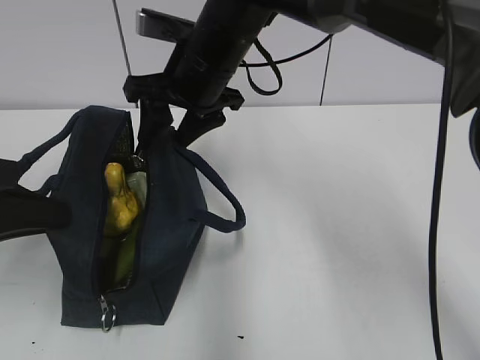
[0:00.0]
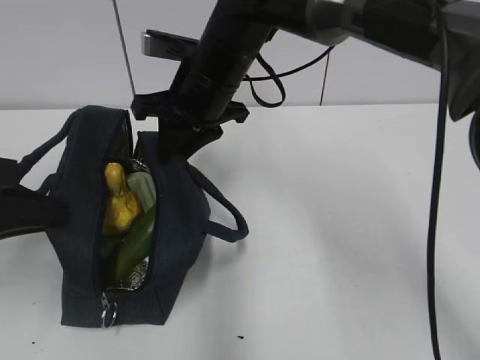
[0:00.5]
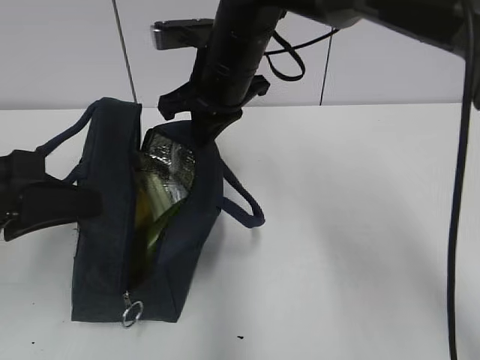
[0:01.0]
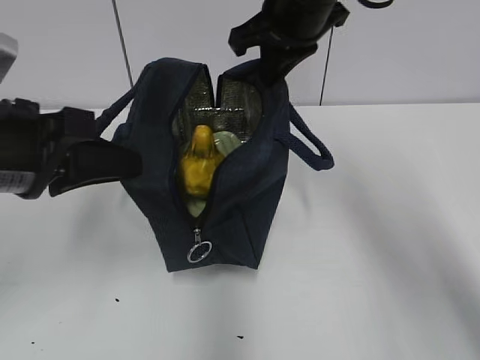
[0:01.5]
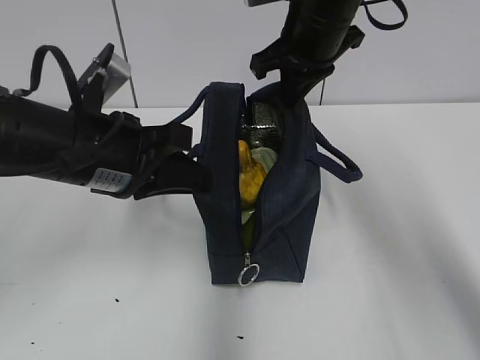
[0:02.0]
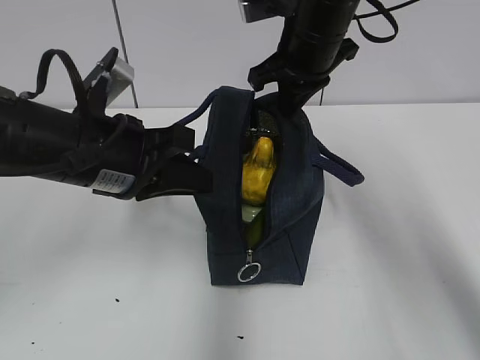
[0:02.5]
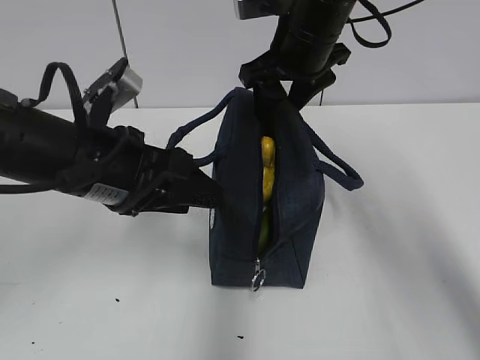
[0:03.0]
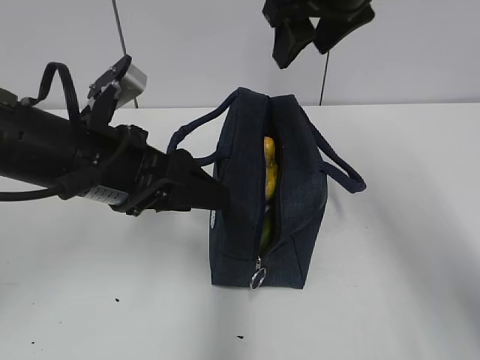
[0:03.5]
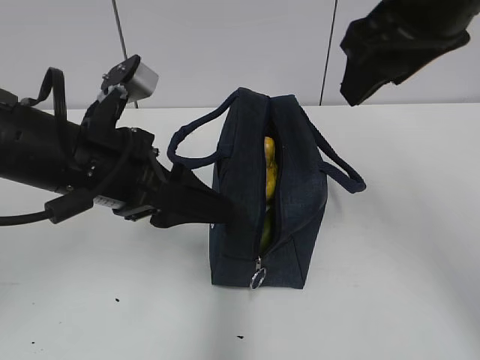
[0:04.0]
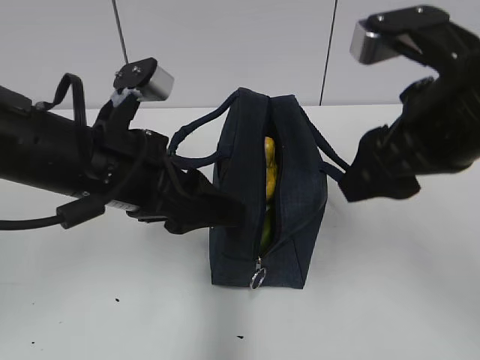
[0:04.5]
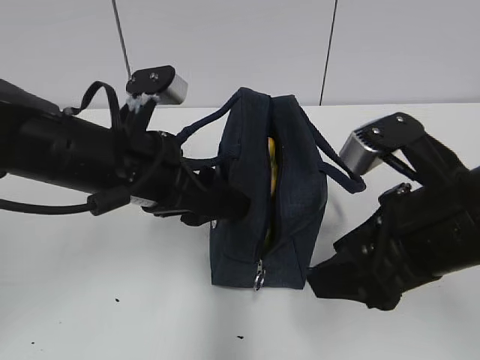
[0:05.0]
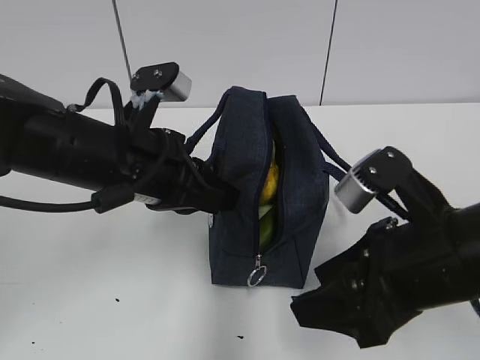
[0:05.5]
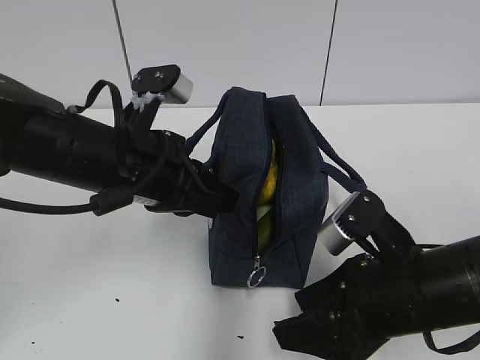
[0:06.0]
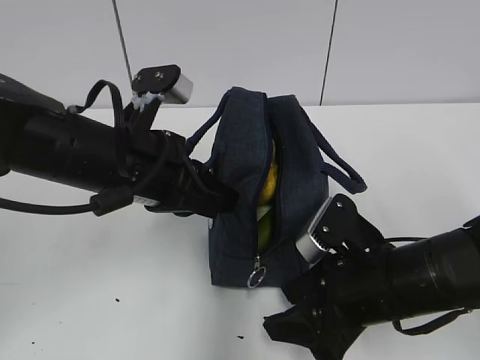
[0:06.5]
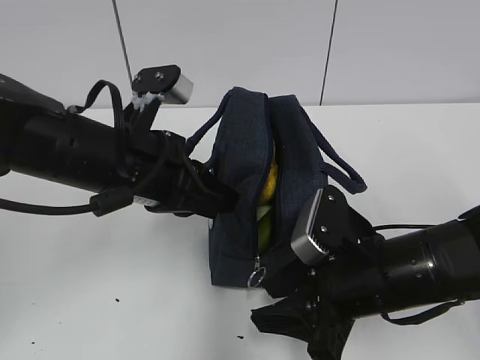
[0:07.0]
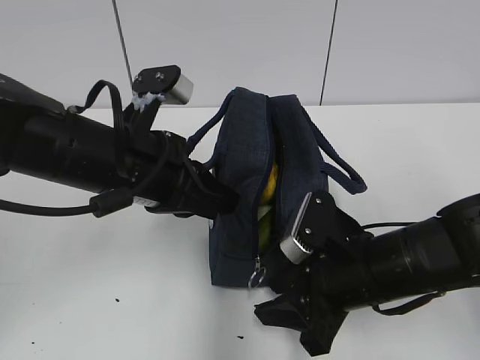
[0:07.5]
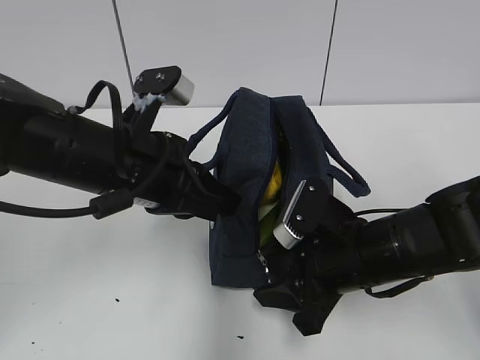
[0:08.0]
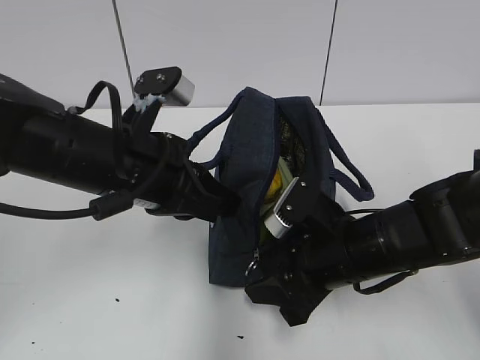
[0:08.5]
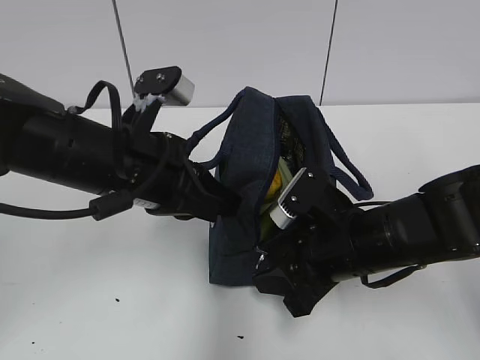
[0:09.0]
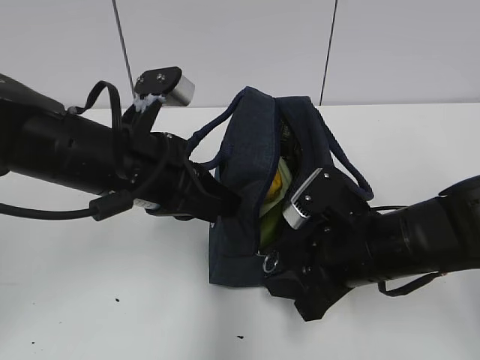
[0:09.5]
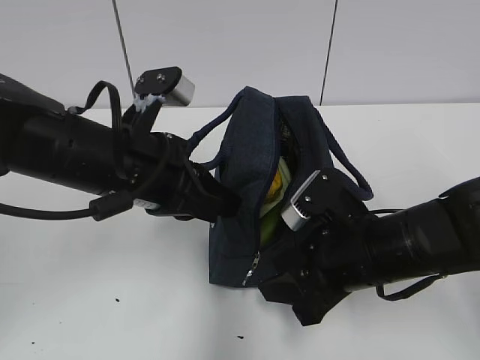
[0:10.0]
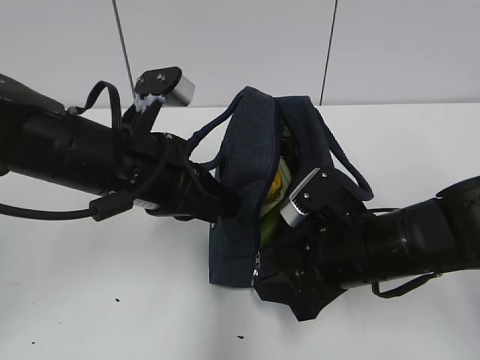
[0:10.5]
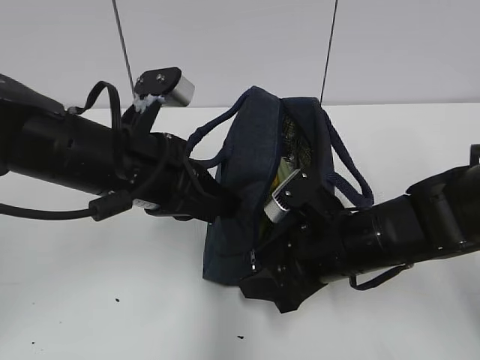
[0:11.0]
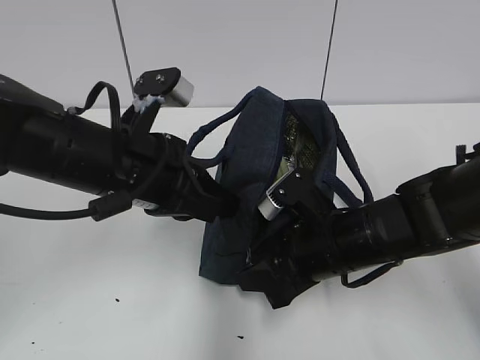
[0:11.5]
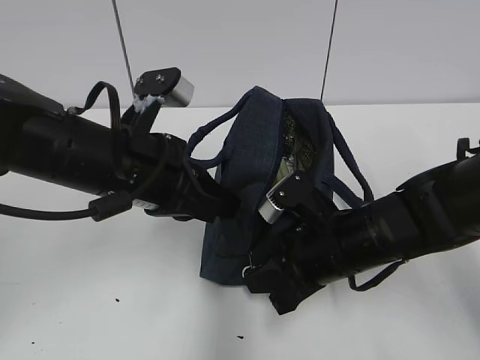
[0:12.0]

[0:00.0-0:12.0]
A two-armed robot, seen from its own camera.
Step, 0:01.0 to 0:03.0: Move the lunch bag to the right.
0:00.0 to 0:02.0: The right gripper heads to the right, covering about 10 cm, and closes up. The left gripper moves to the right and forward, some 15 cm.
0:02.0 to 0:04.0: The left gripper opens its fingers. Meanwhile the right gripper moves backward and upward, roughly 15 cm, and opens up.
0:04.0 to 0:06.0: The right gripper moves downward and backward, approximately 25 cm; the left gripper closes its fingers.
0:06.0 to 0:08.0: The right gripper travels forward by roughly 5 cm.
0:08.0 to 0:10.0: There are only small adjustments of the grippers.
0:10.0 to 0:12.0: The right gripper closes.

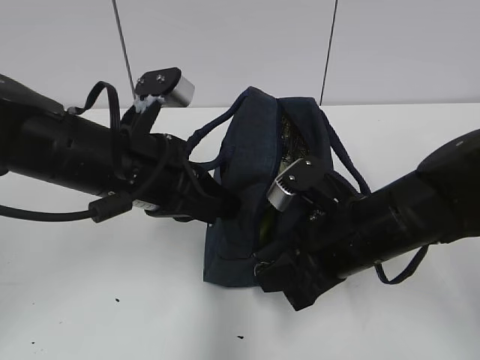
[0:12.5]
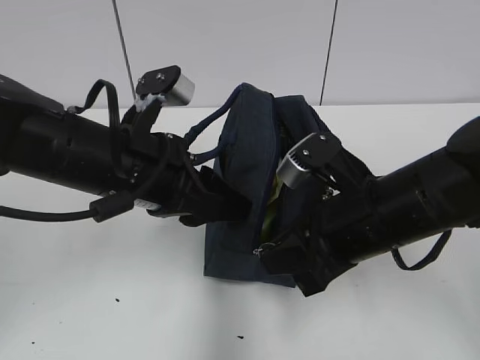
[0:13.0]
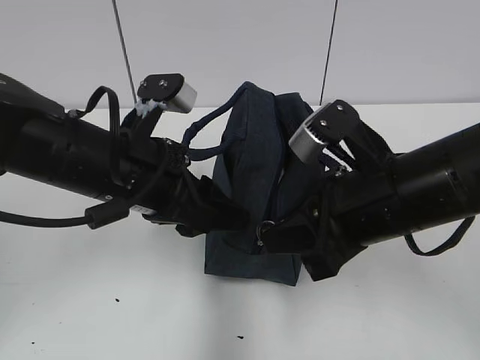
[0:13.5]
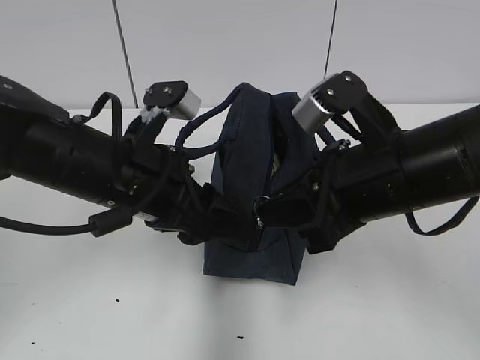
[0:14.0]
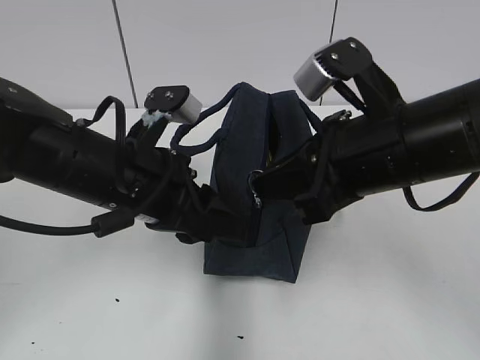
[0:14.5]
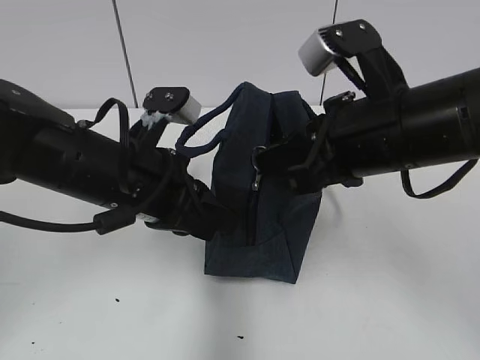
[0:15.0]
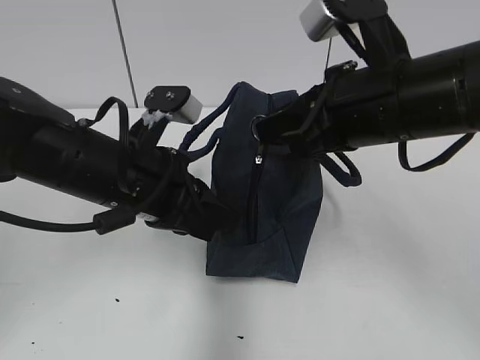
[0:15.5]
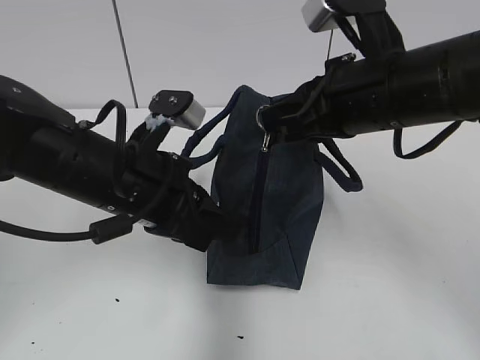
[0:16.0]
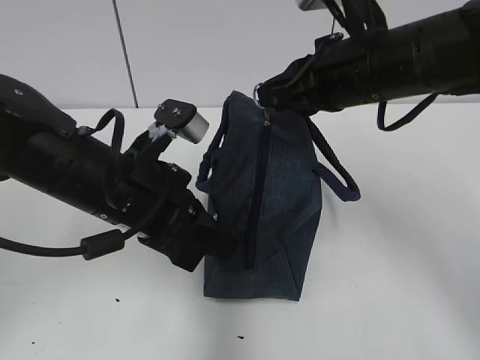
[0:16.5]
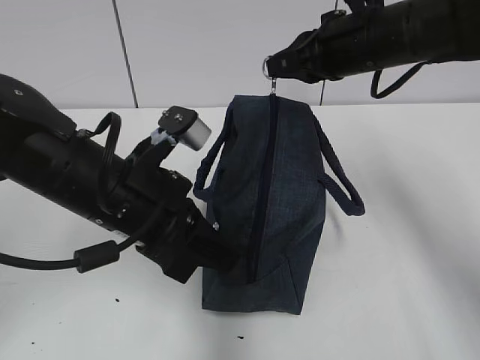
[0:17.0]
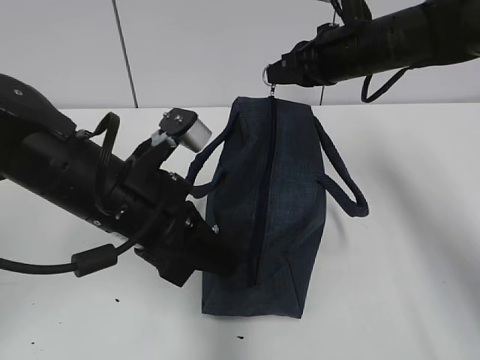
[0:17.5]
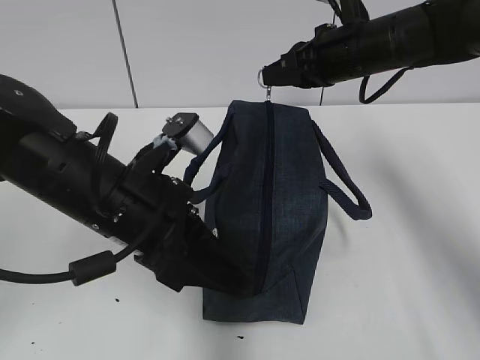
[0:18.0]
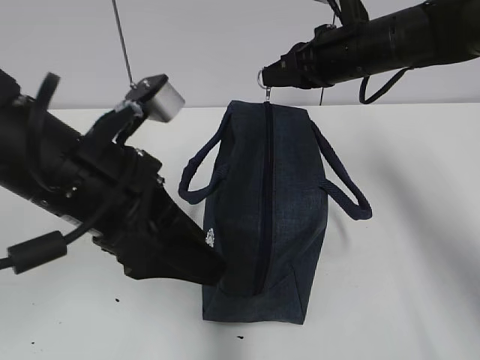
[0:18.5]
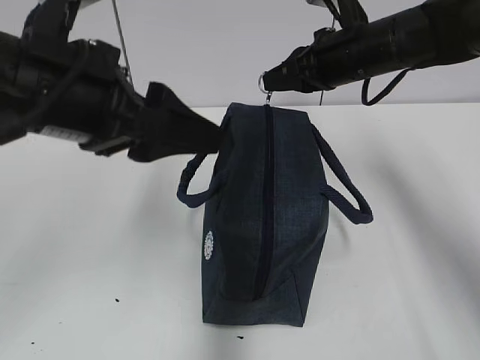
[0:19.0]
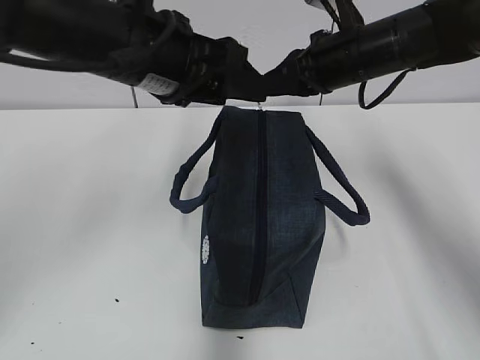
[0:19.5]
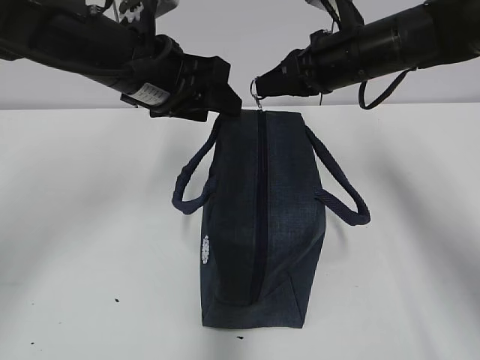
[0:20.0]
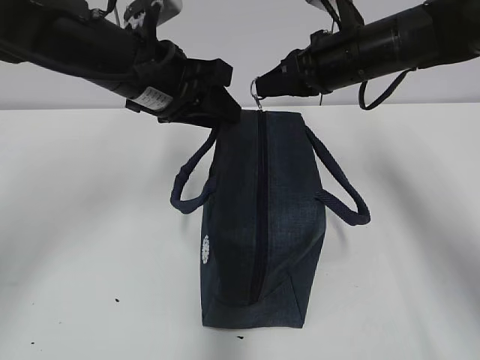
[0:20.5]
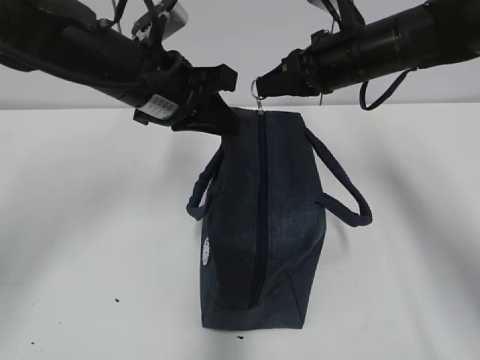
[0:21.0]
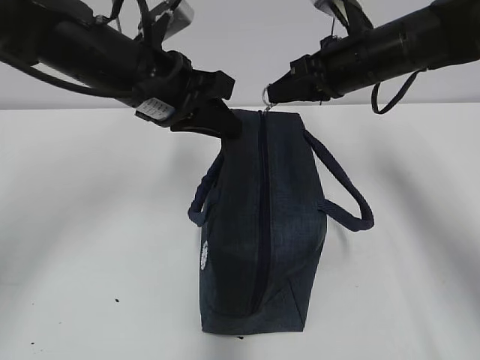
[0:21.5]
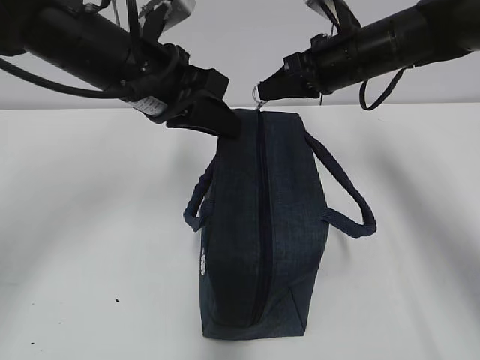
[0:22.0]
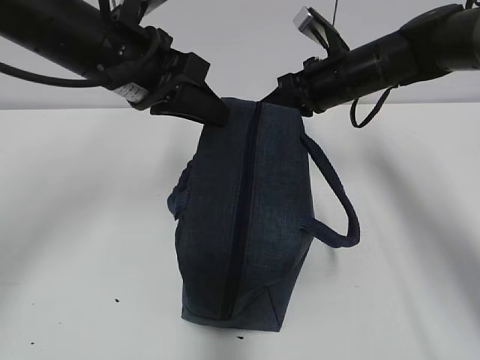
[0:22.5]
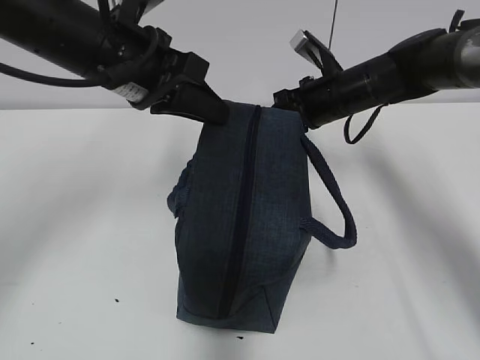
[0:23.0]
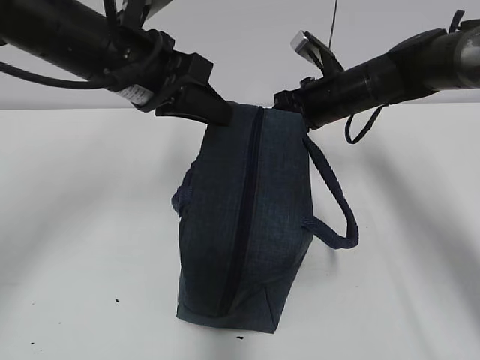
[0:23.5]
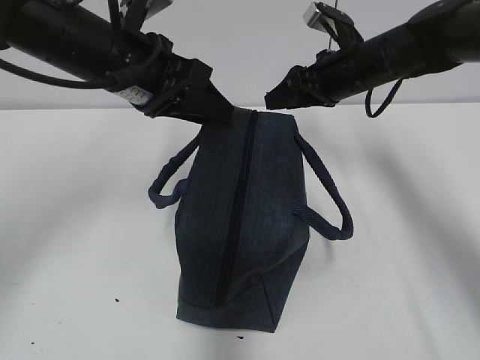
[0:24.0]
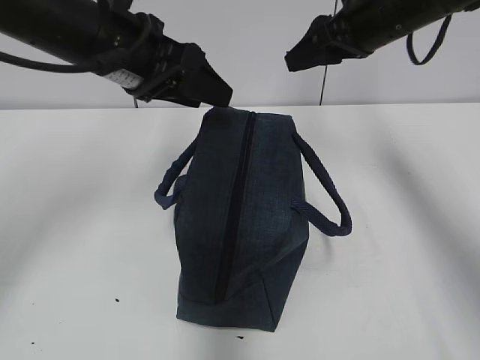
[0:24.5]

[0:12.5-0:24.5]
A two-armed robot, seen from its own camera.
Step, 0:18.5 to 0:23.5: Pull the zipper with your right hand.
0:12.5 to 0:14.5: The right gripper goes some 10 cm upward. The left gripper opens up.
0:14.5 to 0:16.5: The left gripper closes. Meanwhile the right gripper heads forward, covering about 10 cm.
0:16.5 to 0:18.5: The right gripper travels forward by some 10 cm. The left gripper shifts by approximately 5 cm, and opens its fingers.
0:18.5 to 0:20.5: The left gripper goes roughly 15 cm forward.
0:20.5 to 0:22.5: The left gripper closes up; the right gripper changes place by about 5 cm.
0:22.5 to 0:24.5: The right gripper is displaced upward by approximately 10 cm, and opens up, while the left gripper opens its fingers.

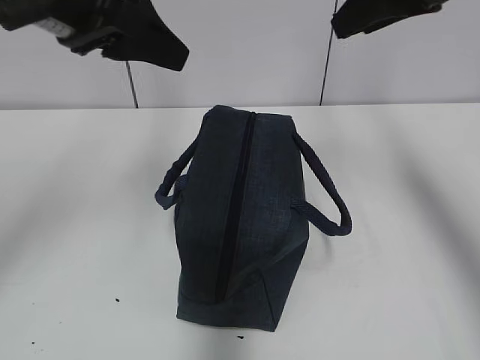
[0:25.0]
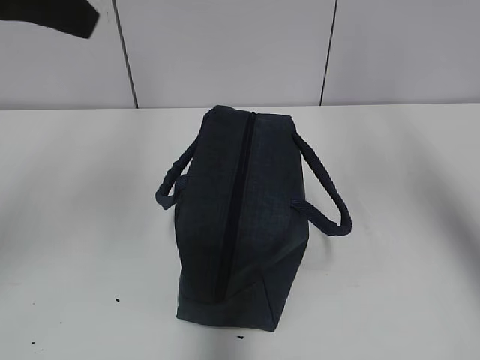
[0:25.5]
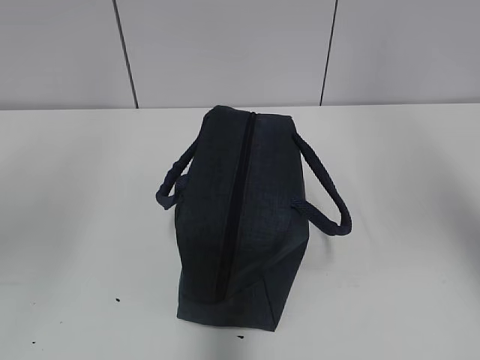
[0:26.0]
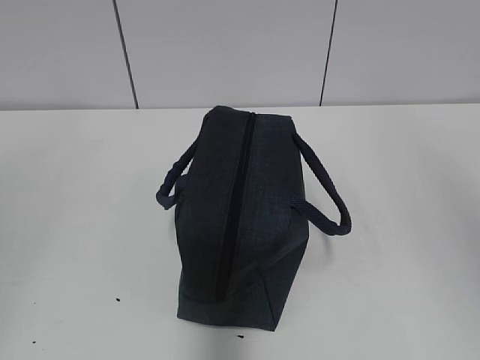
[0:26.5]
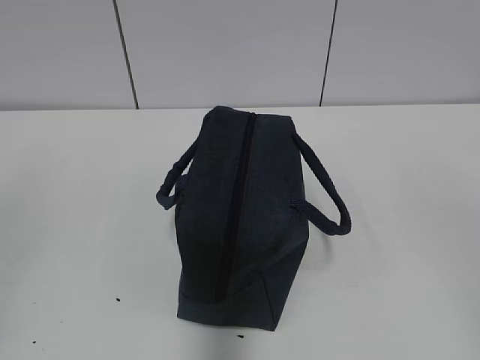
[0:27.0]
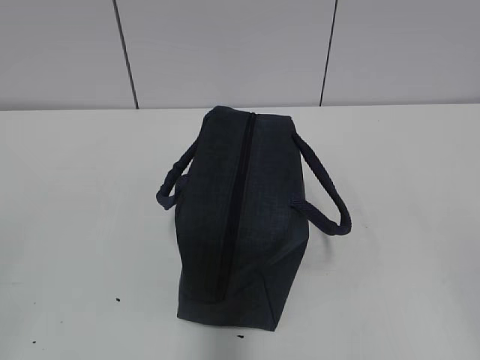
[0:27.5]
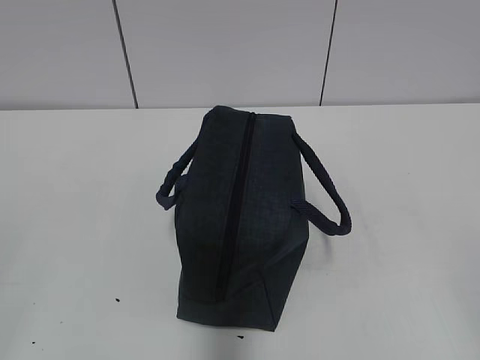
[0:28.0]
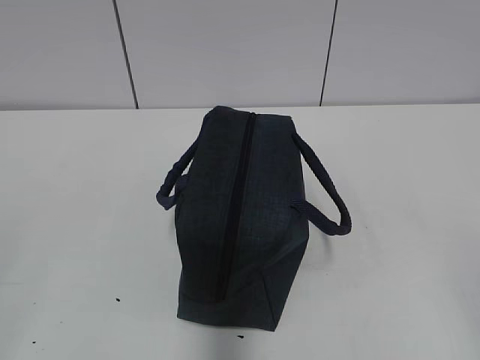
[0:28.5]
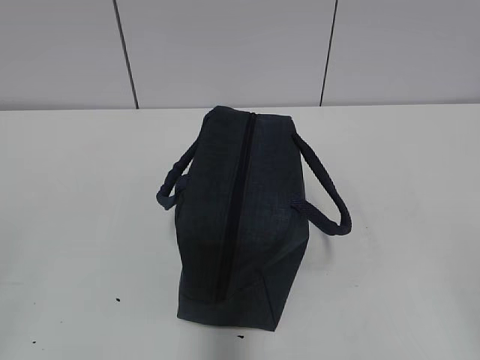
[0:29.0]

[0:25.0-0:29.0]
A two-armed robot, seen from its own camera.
0:25.0 to 0:27.0: The left gripper travels backward and to the left by approximately 35 cm; the right gripper shifts about 40 cm backward.
